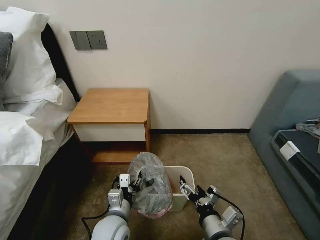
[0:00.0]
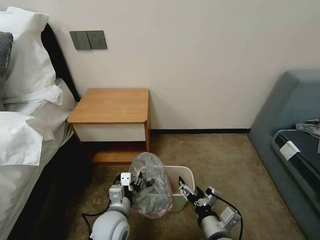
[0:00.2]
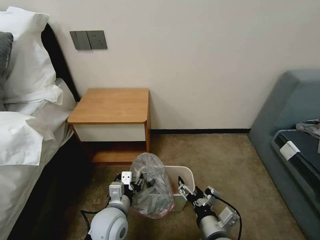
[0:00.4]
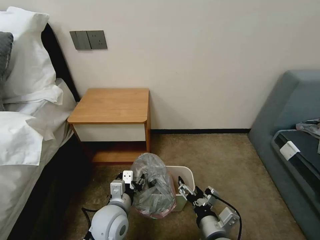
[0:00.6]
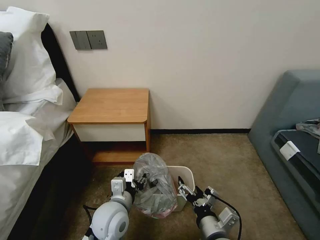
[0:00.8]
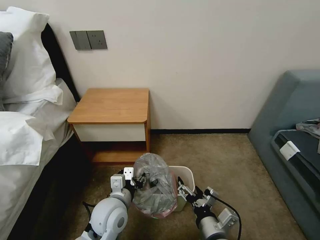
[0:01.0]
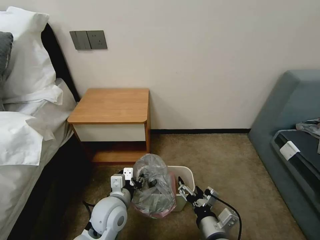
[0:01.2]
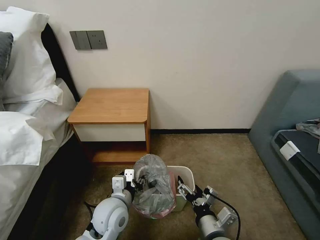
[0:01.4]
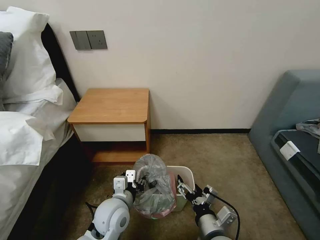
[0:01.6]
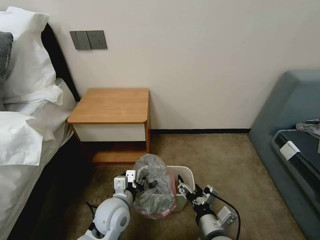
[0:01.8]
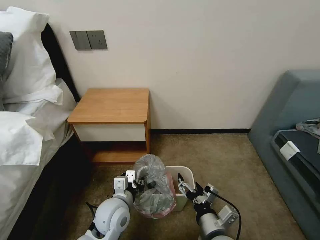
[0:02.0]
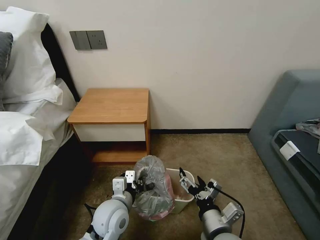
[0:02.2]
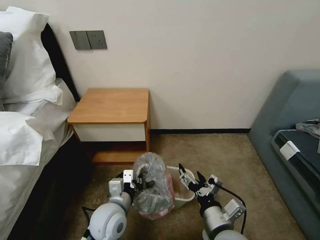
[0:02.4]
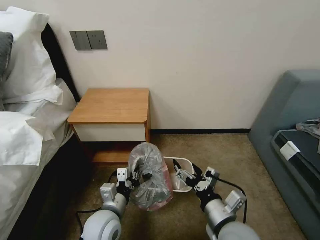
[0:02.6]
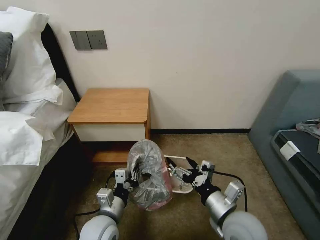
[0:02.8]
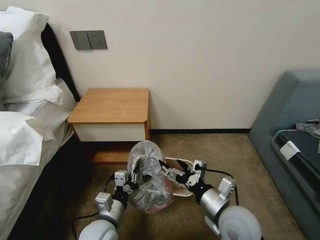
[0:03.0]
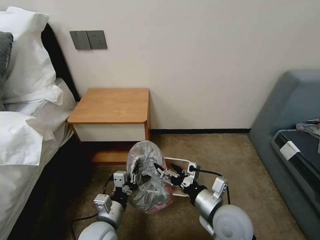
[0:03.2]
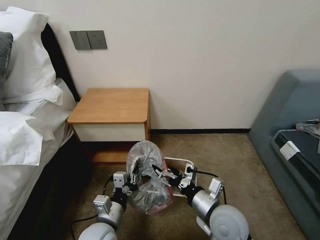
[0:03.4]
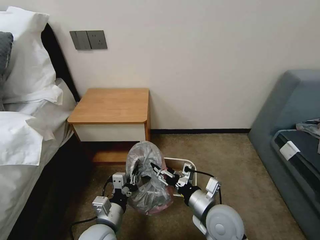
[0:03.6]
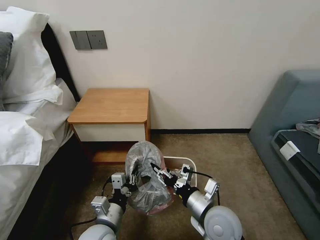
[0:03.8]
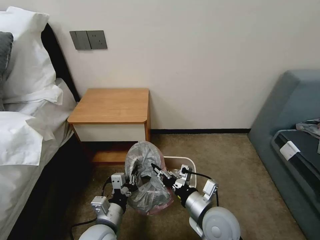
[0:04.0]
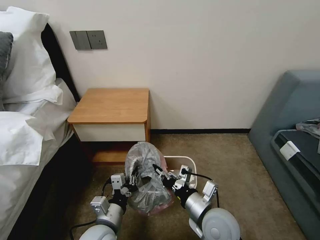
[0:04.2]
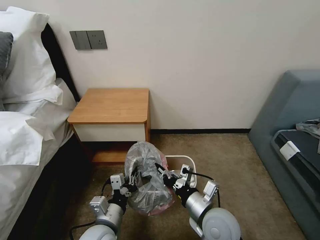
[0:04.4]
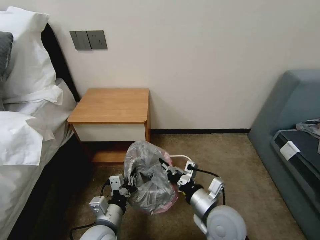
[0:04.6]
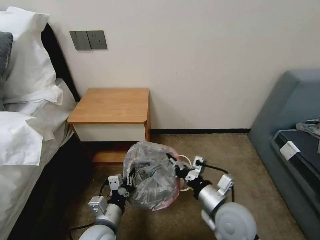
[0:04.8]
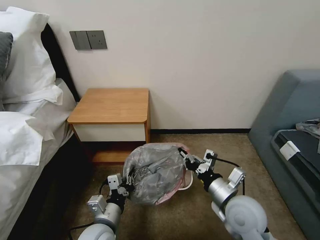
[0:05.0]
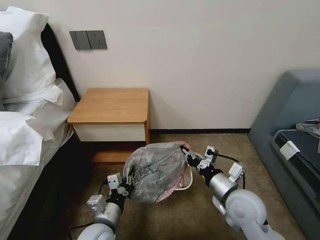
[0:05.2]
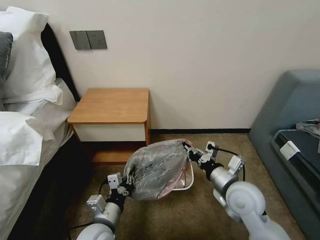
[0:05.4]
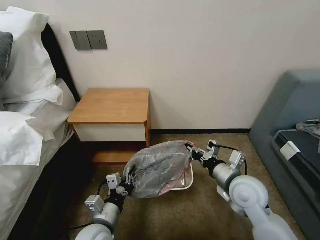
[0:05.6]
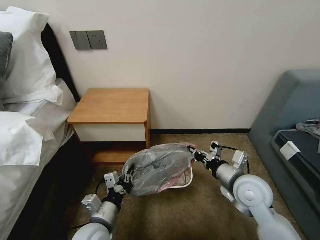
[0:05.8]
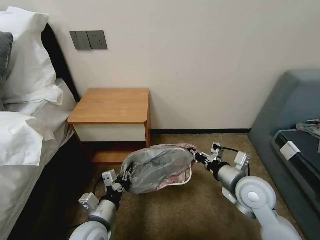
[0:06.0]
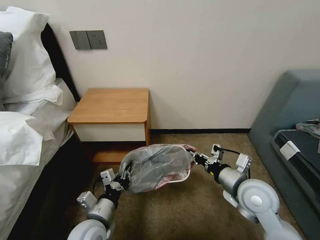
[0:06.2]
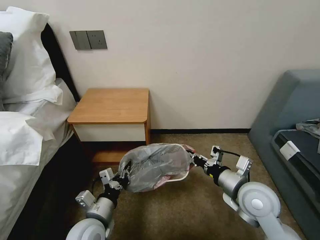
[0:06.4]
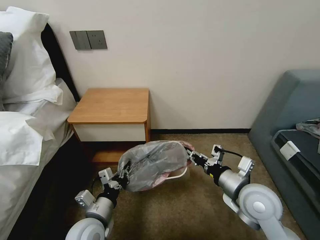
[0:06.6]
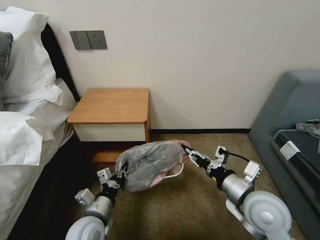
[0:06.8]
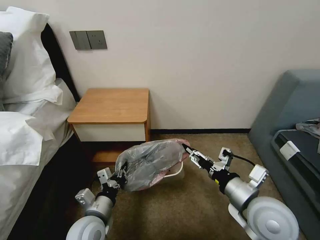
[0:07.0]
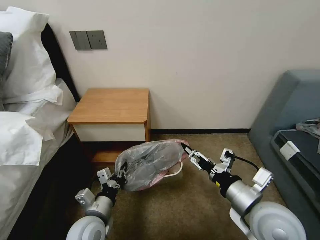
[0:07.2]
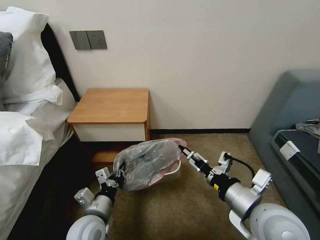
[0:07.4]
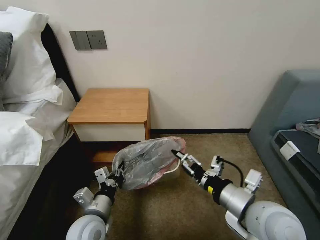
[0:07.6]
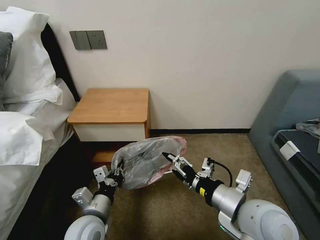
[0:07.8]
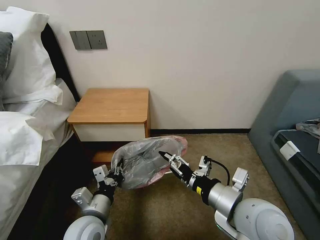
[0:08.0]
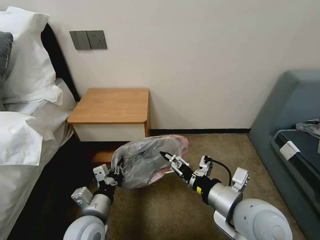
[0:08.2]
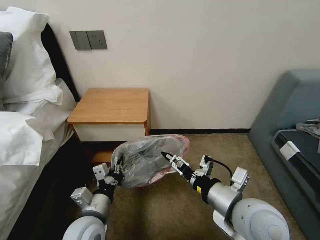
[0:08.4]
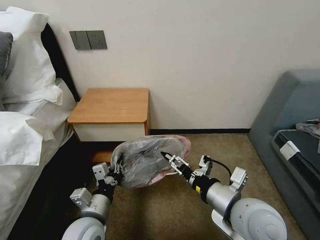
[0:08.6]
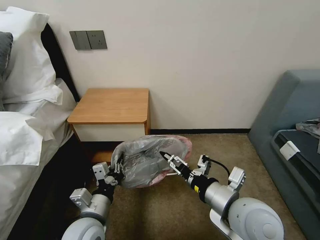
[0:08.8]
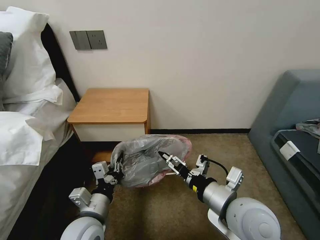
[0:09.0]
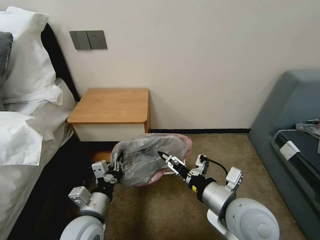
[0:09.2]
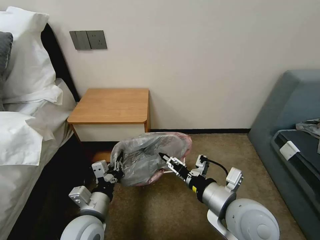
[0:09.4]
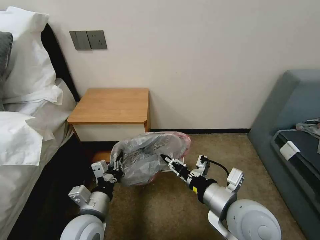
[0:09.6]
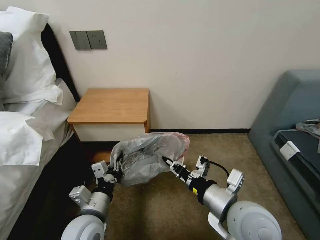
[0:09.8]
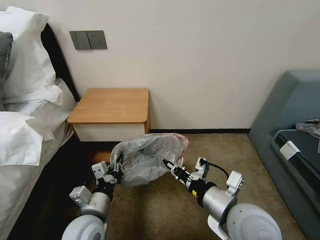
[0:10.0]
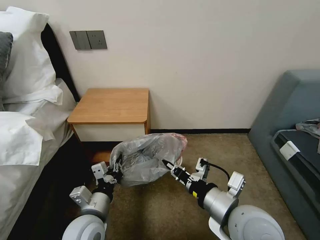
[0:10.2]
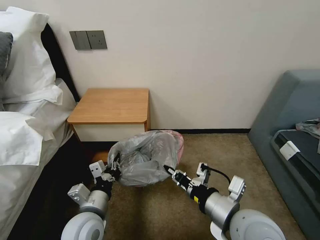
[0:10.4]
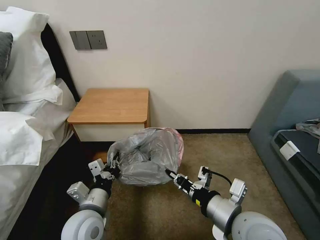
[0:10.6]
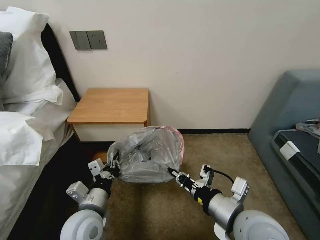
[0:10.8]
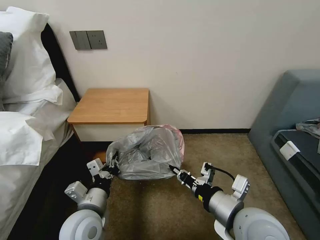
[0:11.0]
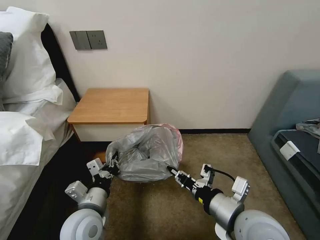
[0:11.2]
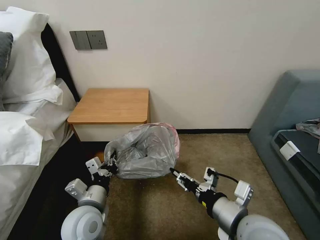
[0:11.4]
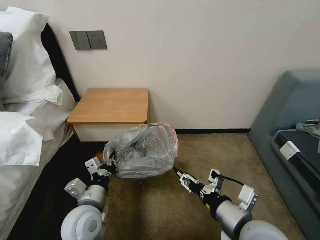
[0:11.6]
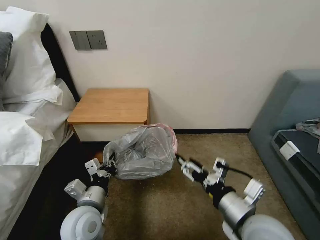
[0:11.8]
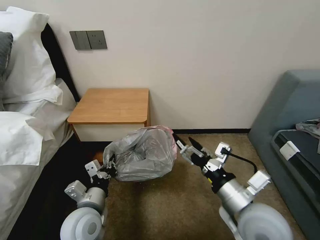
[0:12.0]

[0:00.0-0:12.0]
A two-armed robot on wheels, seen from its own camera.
Task of the whole recording: Pick up the garbage bag from the table and place it over the trash can.
0:00.0 to 0:01.6: The left gripper shifts by approximately 5 cm.
0:01.6 to 0:03.0: The left gripper moves backward, about 5 cm; the right gripper shifts roughly 10 cm upward and forward.
0:03.0 to 0:04.4: The right gripper closes its fingers.
0:04.4 to 0:06.0: The right gripper moves to the right, forward and upward, approximately 15 cm.
0:06.0 to 0:07.6: The right gripper goes approximately 10 cm backward and upward, and opens.
0:07.6 to 0:09.0: There are only small adjustments of the grippers.
0:09.0 to 0:10.4: The right gripper closes.
0:10.4 to 0:12.0: The right gripper opens up.

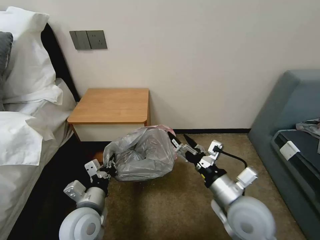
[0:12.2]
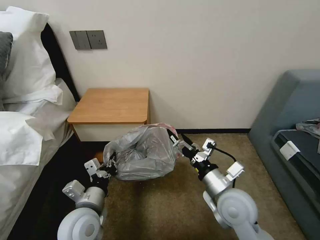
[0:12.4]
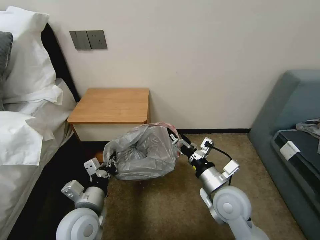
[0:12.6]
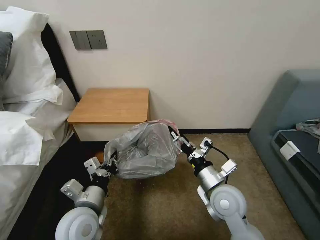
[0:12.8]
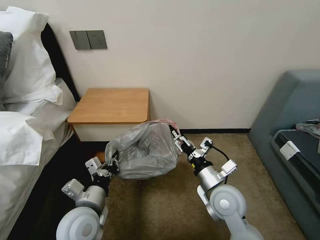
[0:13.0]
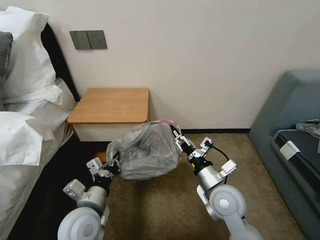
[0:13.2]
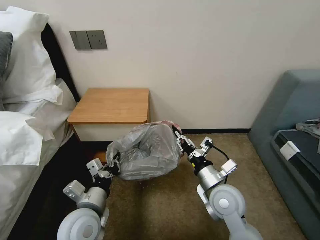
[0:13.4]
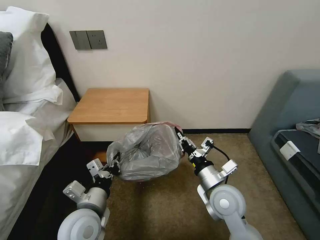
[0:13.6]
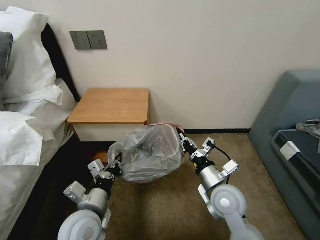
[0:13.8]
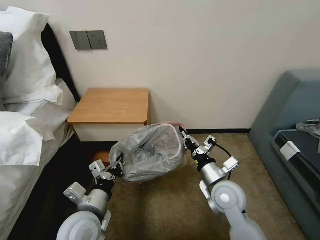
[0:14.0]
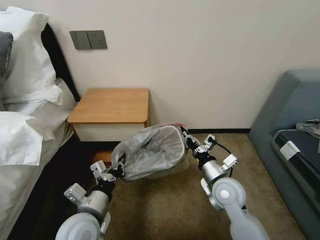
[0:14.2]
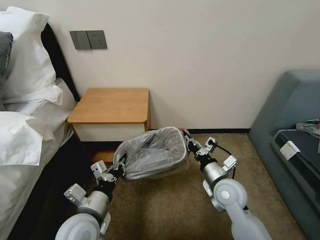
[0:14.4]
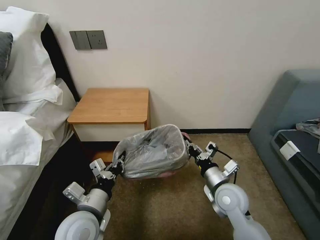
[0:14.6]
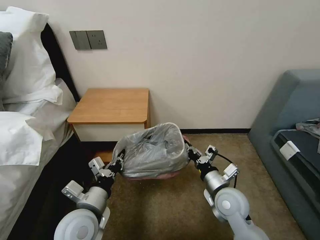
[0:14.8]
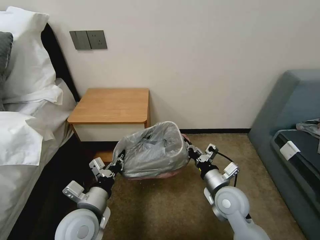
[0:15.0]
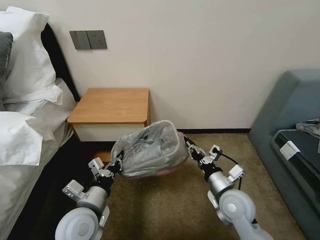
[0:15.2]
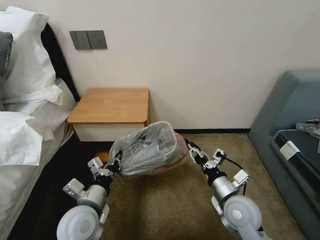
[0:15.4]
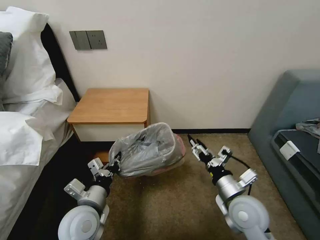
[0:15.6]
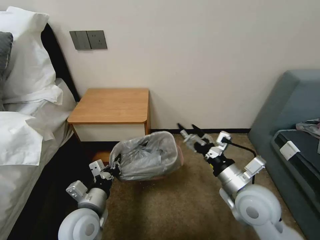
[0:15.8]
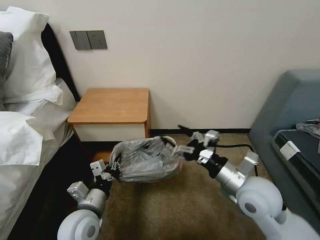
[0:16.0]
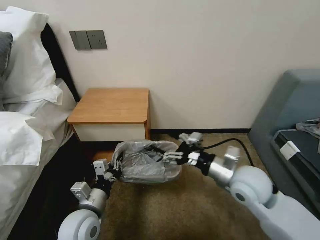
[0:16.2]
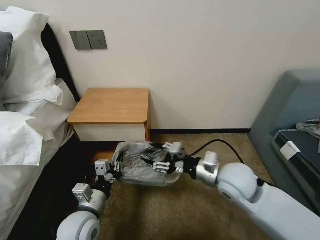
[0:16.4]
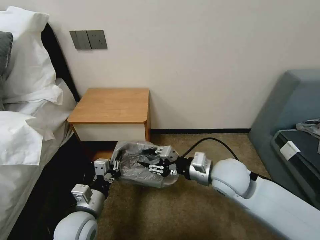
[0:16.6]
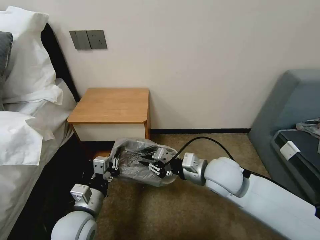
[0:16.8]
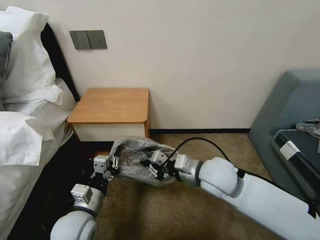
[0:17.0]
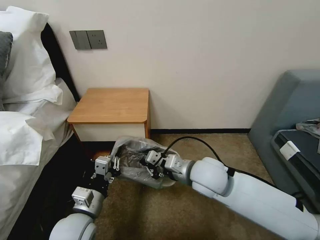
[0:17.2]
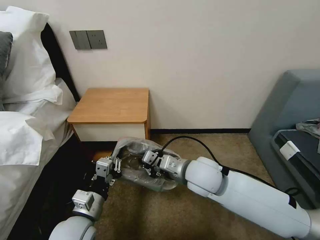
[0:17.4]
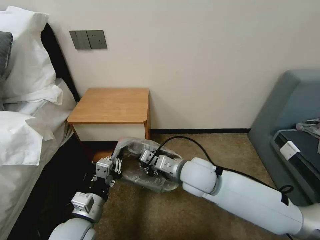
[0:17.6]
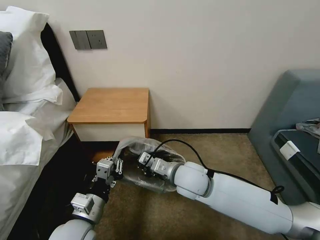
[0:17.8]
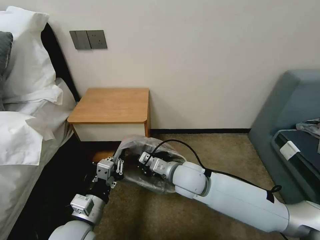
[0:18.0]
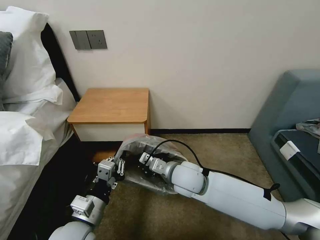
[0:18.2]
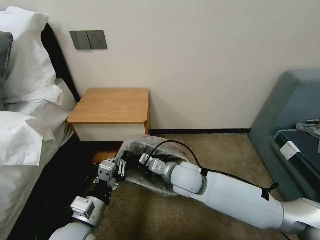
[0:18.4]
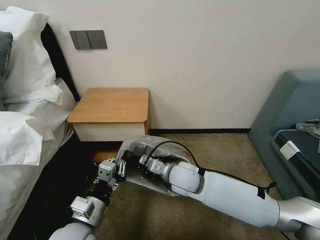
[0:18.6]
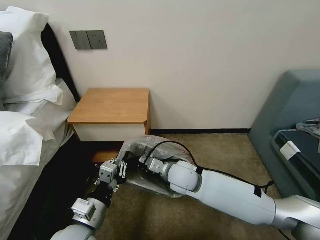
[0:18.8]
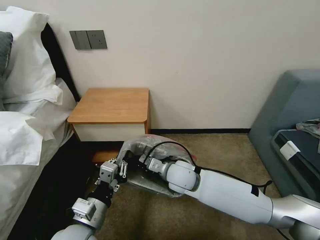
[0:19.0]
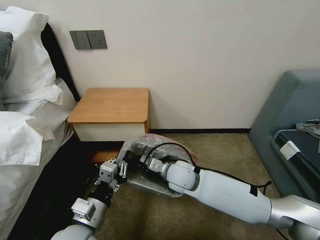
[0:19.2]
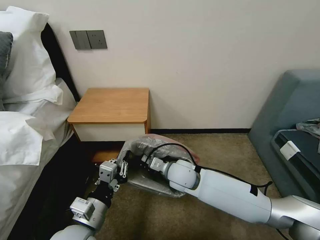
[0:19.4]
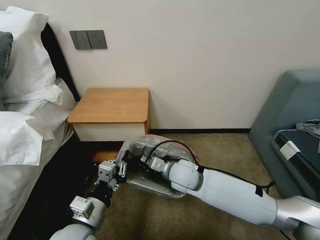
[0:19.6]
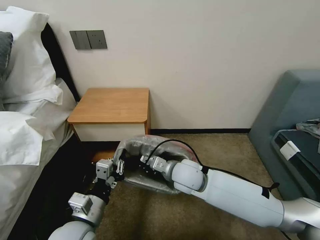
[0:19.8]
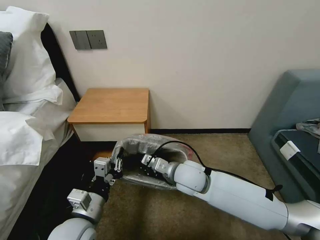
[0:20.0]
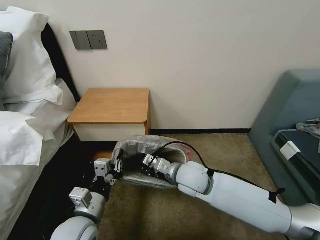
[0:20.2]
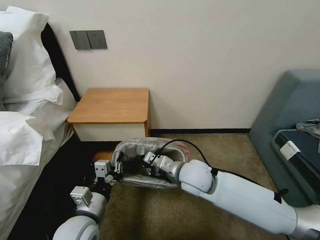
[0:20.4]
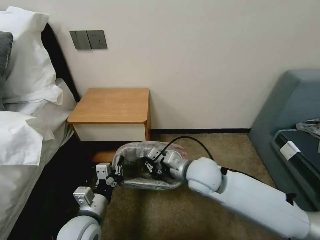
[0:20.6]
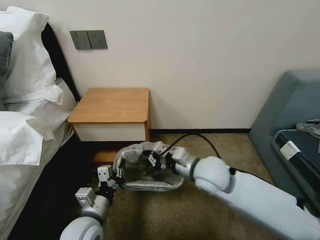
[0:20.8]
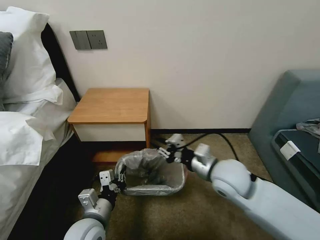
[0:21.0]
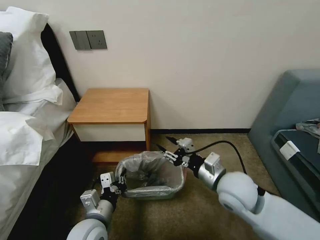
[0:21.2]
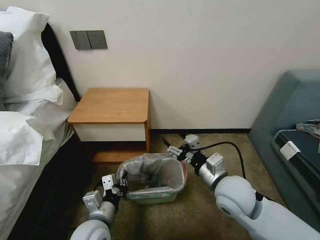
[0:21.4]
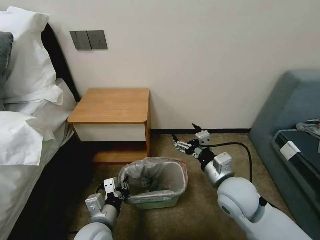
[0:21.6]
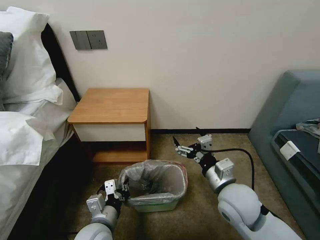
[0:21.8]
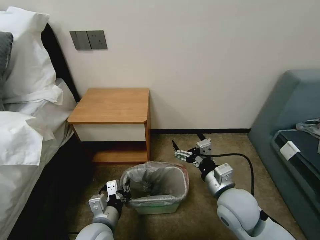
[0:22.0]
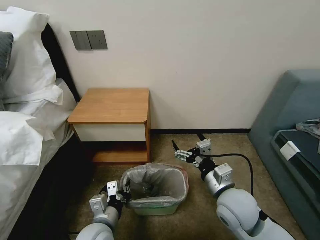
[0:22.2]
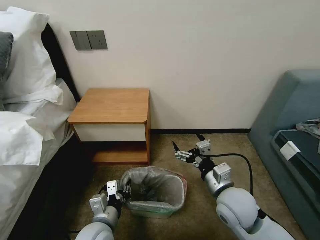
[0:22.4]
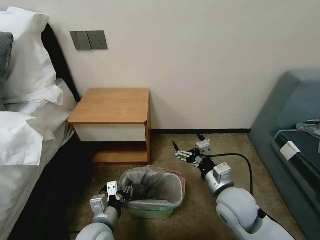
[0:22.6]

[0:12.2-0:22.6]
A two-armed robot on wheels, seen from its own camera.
Task of the whole recording: Pick up the garbage bag from the table and place it over the trash can.
0:12.2 to 0:13.6: The right gripper moves approximately 5 cm, and closes.
0:13.6 to 0:15.2: The grippers stay close to where they were, moving slightly.
0:15.2 to 0:16.6: The right gripper shifts approximately 10 cm upward, and opens and closes again.
0:16.6 to 0:18.2: The right gripper heads to the left, covering roughly 10 cm.
0:18.2 to 0:19.6: There are only small adjustments of the grippers.
0:19.6 to 0:21.2: The right gripper goes roughly 15 cm to the right, backward and upward, and opens its fingers. The left gripper changes place by approximately 5 cm.
0:21.2 to 0:22.6: The left gripper opens up; the right gripper opens up.
